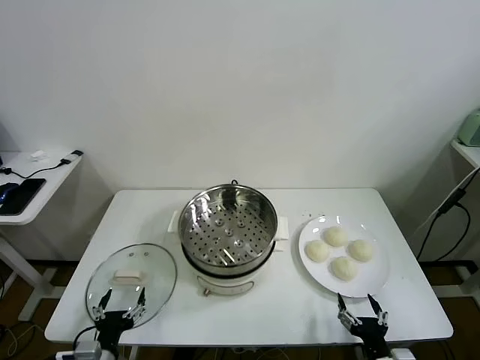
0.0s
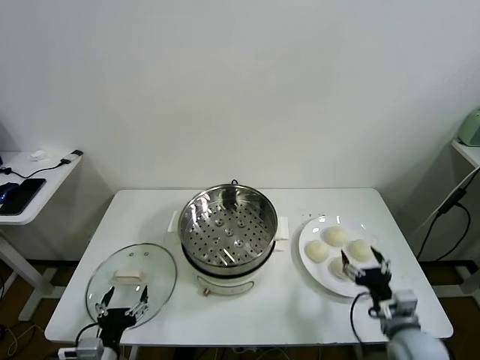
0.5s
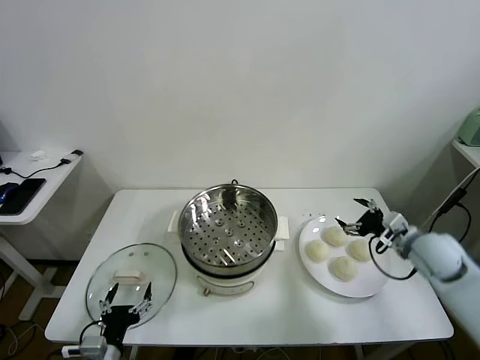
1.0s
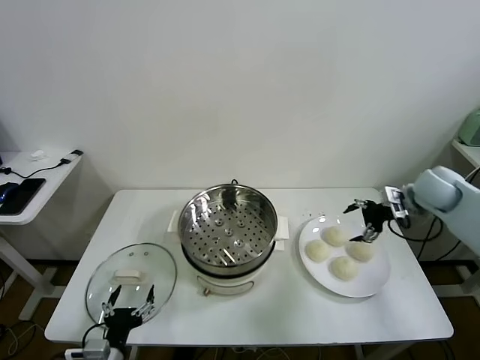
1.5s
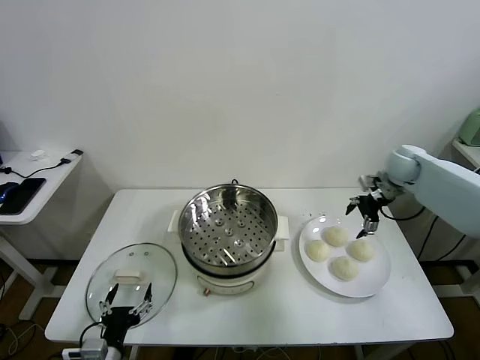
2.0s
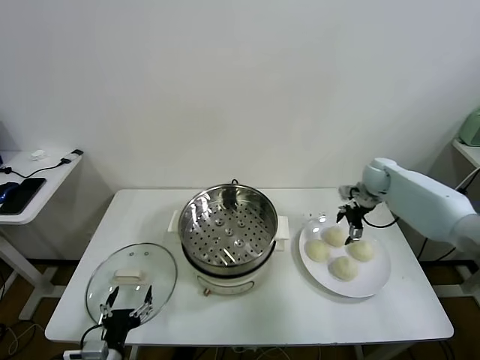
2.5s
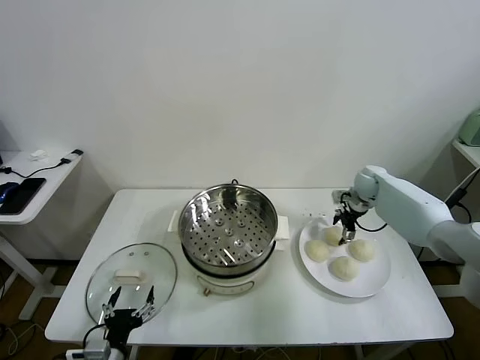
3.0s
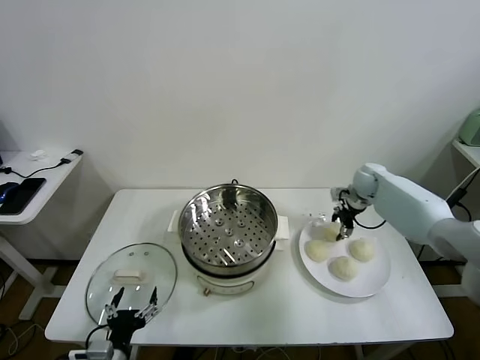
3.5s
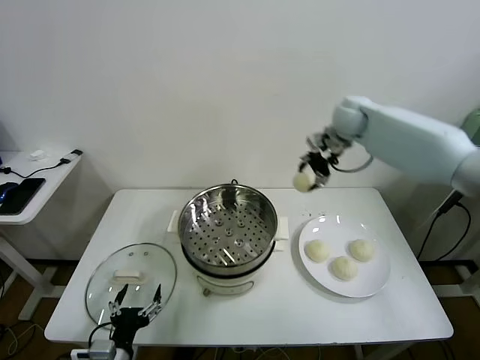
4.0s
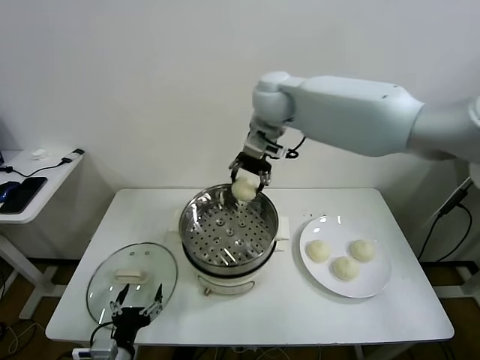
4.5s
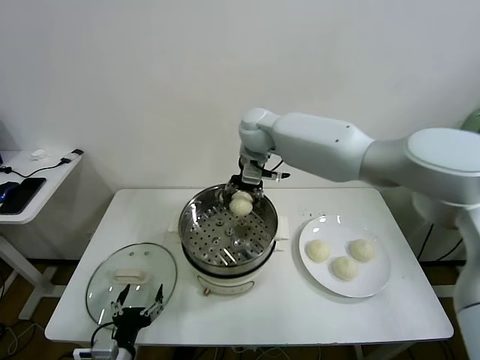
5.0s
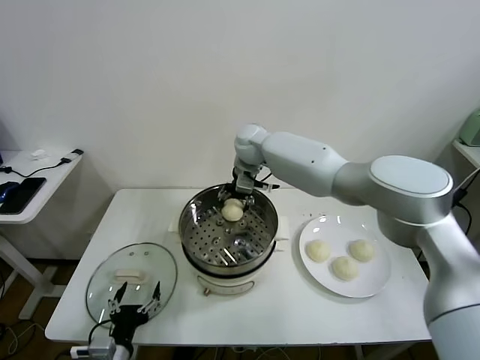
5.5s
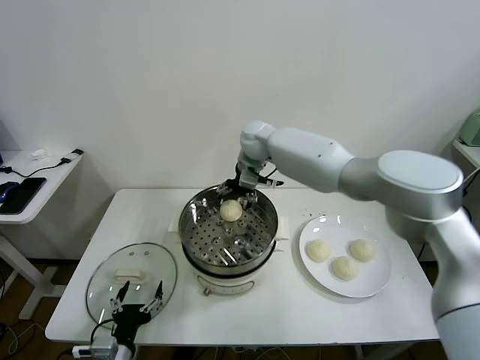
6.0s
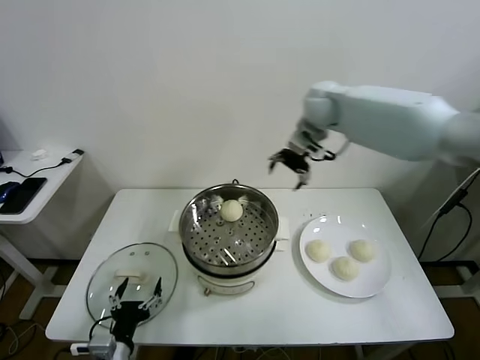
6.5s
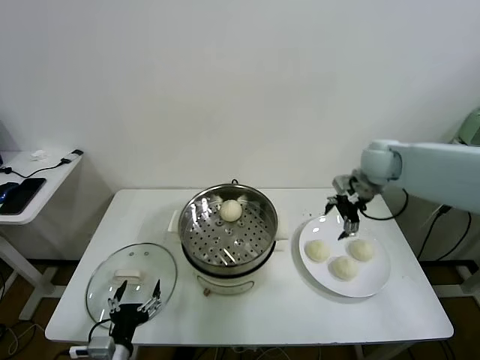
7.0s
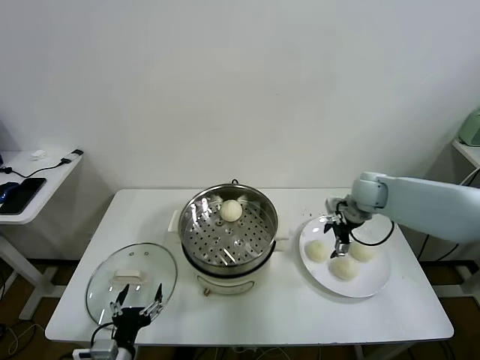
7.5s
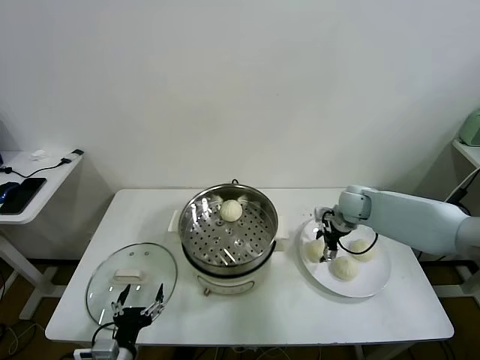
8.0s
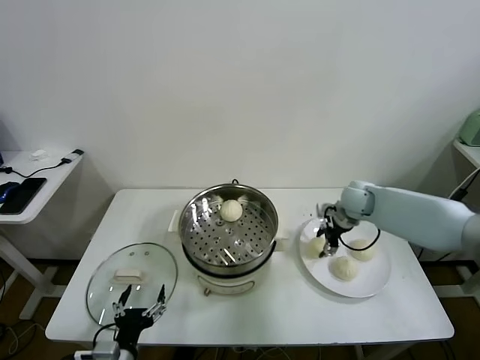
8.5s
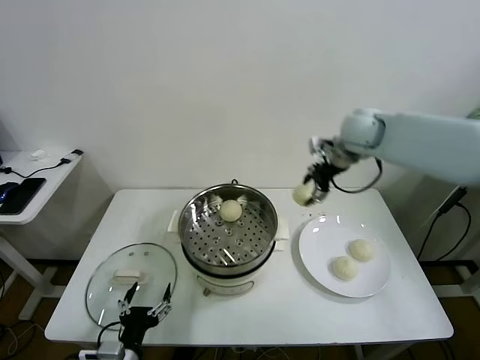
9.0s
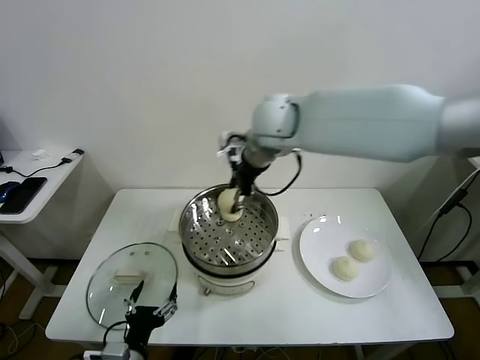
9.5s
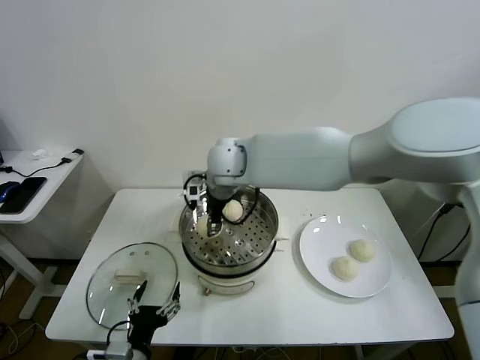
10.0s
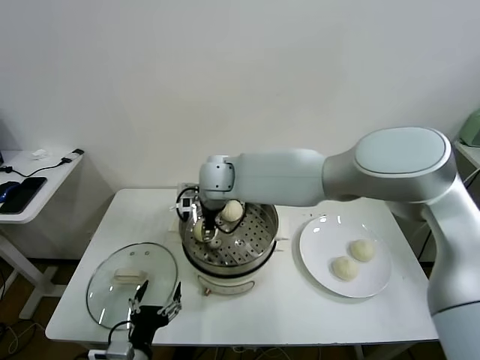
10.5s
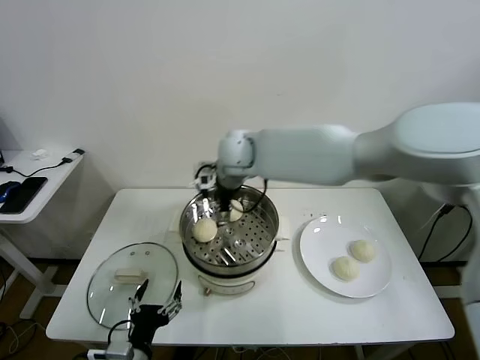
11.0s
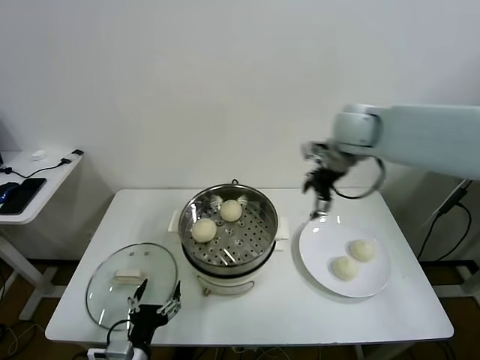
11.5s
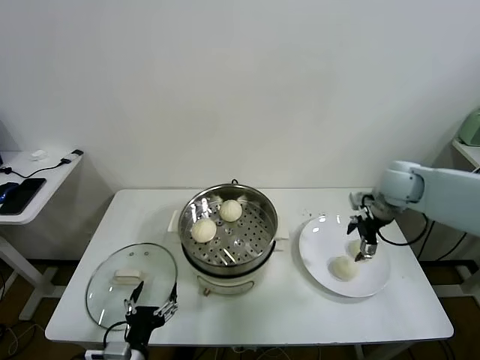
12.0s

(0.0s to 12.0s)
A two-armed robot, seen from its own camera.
Task of the whole recording: take steamed baozi put them in steamer.
Step, 0.0s - 3.0s: Grasp the baozi in the plate with right gripper.
Step, 3.5s - 5.5s: Place the baozi on the steamer with right gripper.
Step, 6.0s - 8.0s: Grasp the baozi in the plate with right gripper.
Step, 8.5s - 10.5s: Place the baozi on the steamer with right gripper.
2.0s - 4.0s: The right gripper shifts about 25 cm to the left and upward, and closes.
4.0s - 6.0s: The right gripper travels to the left and downward by roughly 20 cm, and opens up.
6.0s - 8.0s: The right gripper shifts some 30 cm to the right and downward, and closes.
8.0s - 10.0s: The right gripper goes roughly 35 cm to the left and upward, and closes its fingers.
10.0s - 12.0s: The right gripper is displaced to the right by approximately 40 cm, and opens its fingers.

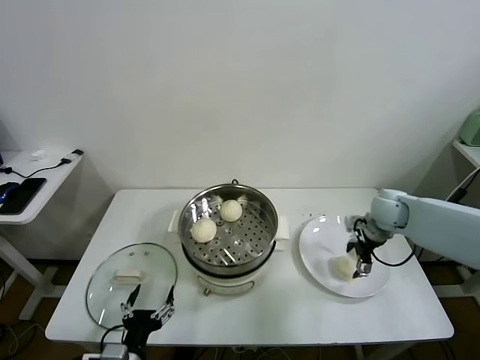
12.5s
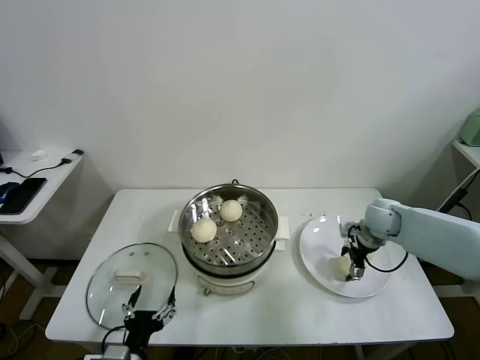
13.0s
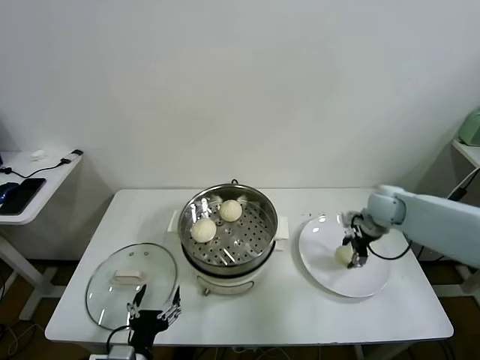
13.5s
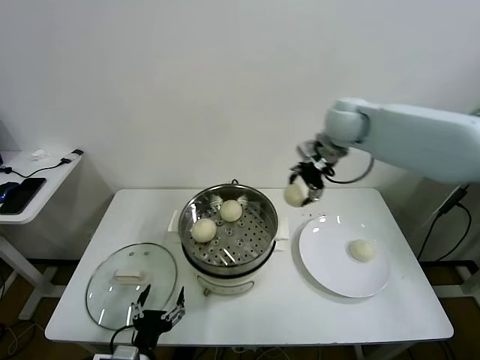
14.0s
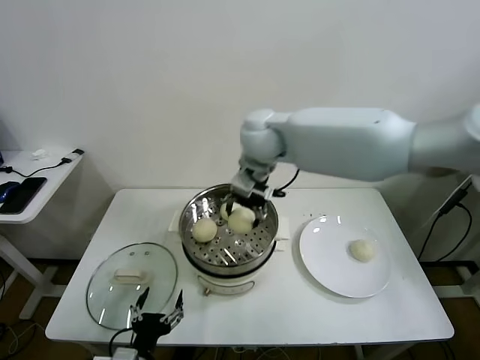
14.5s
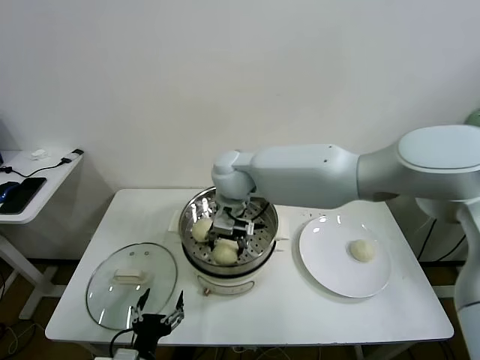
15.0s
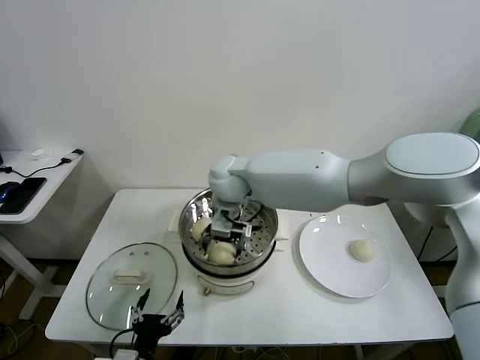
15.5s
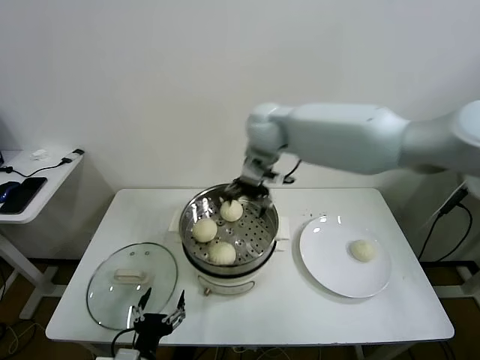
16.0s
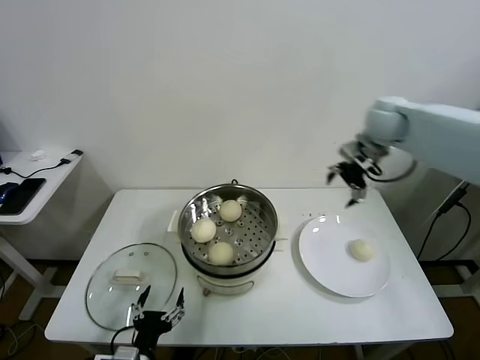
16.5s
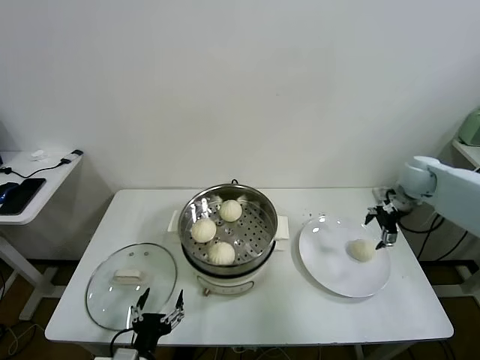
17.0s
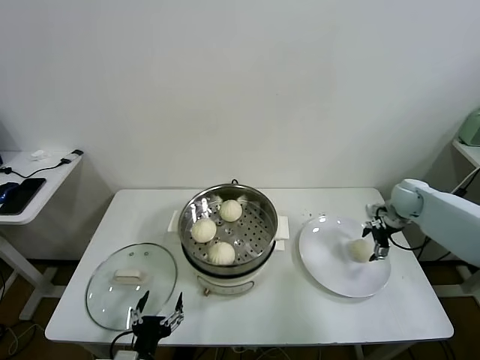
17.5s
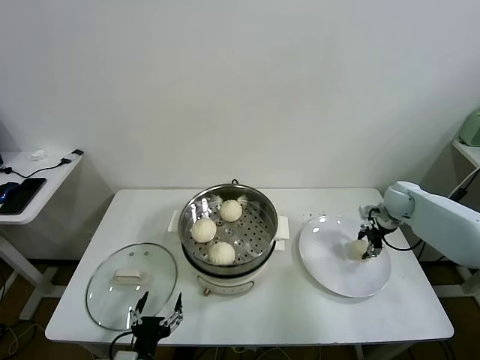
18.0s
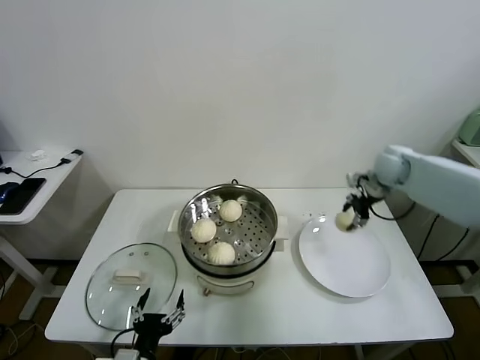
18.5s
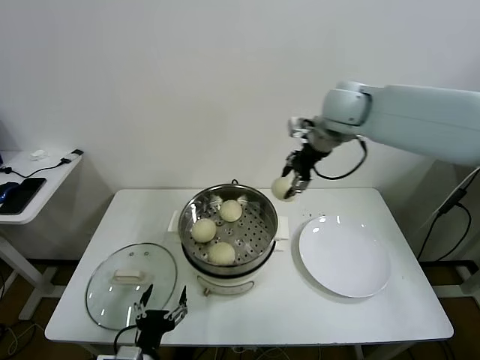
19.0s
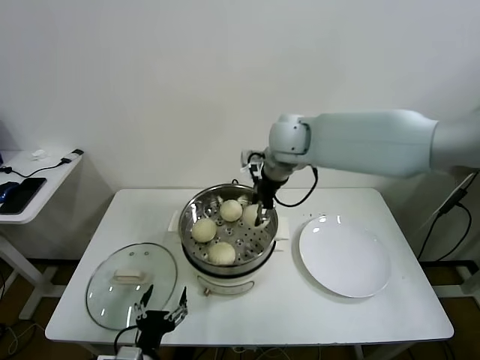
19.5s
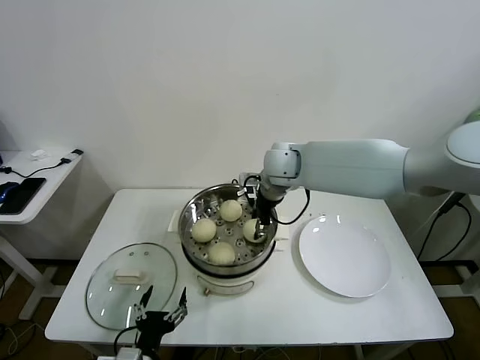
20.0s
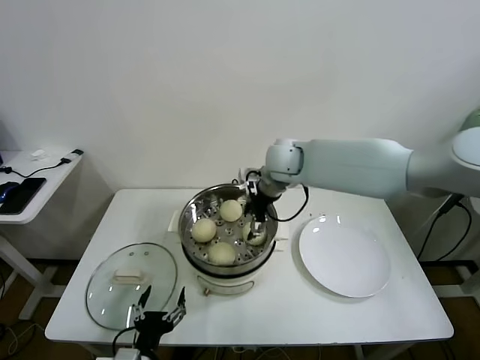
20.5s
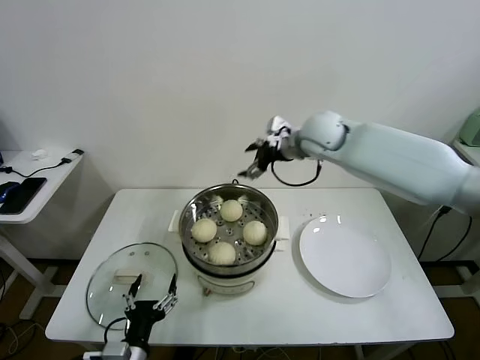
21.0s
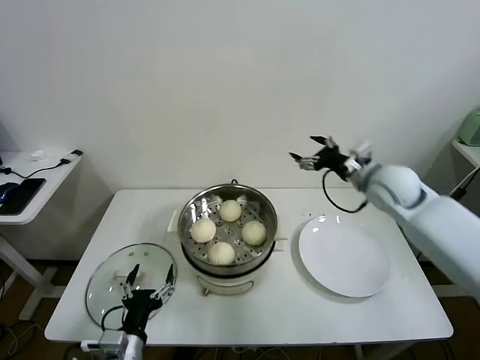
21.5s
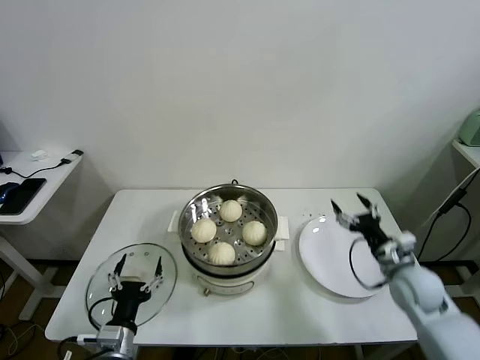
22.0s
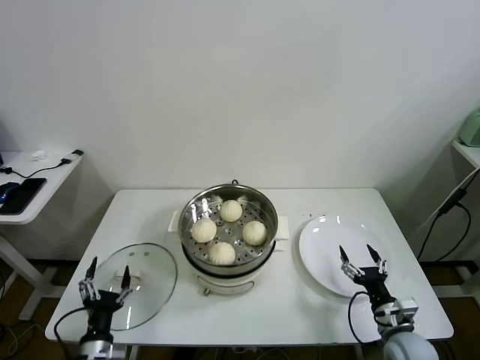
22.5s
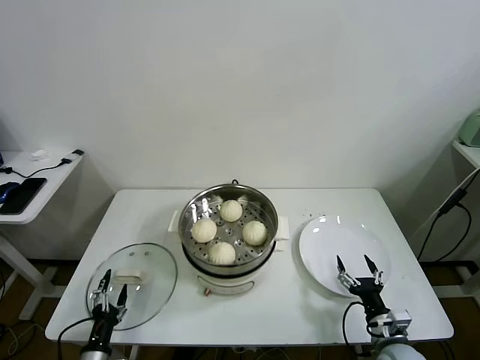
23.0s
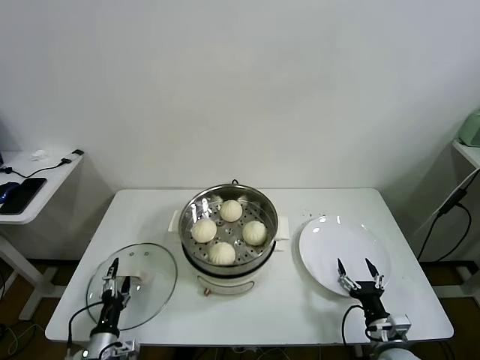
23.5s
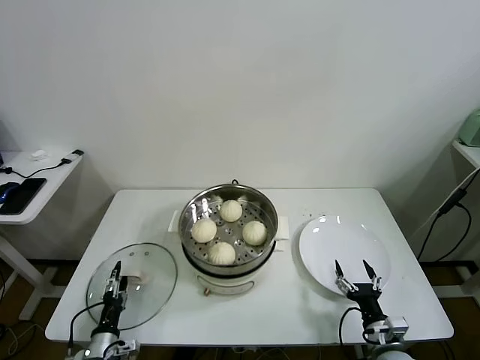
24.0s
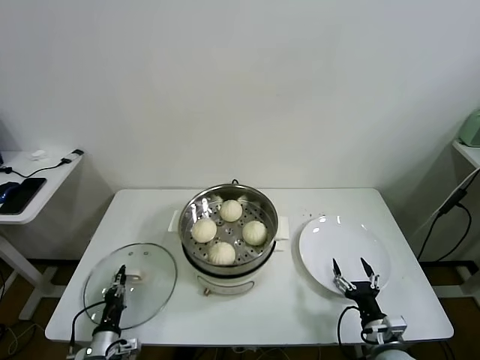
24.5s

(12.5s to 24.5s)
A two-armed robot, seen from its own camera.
Task of the whole recording: take steamed baozi put them in steamer.
Step, 13.5s - 15.5s: Place the baozi on the steamer with right gripper.
Step, 16.0s - 18.0s: Grasp the baozi in the plate with right gripper.
Step, 18.5s - 20.0s: Place the baozi on the steamer with right gripper.
Step, 20.5s - 24.0s: Grasp the pot lid with left gripper.
12.5s - 14.5s: The right gripper travels to the left and upward by some 40 cm, and closes up.
14.5s - 16.5s: The right gripper shifts some 30 cm to the right, and opens up.
16.5s - 18.5s: The right gripper moves downward, some 10 cm, and closes up.
18.5s - 20.5s: The right gripper moves to the left, some 25 cm, and opens.
20.5s - 22.5s: The right gripper goes roughly 50 cm backward, downward and to the right. Meanwhile the left gripper shifts some 10 cm to the left.
22.5s - 24.5s: The right gripper ends up approximately 5 cm from where it was, while the left gripper goes some 10 cm downward, and closes its fingers.

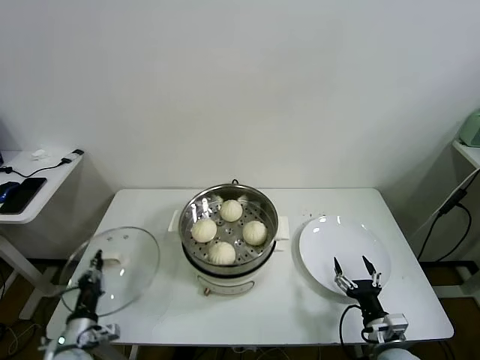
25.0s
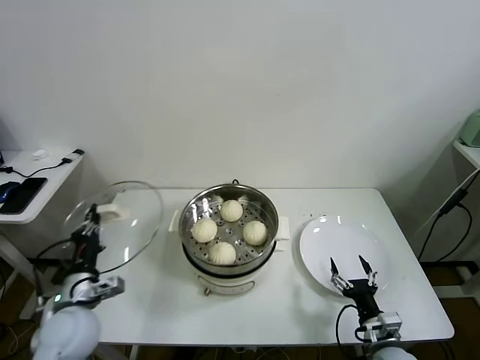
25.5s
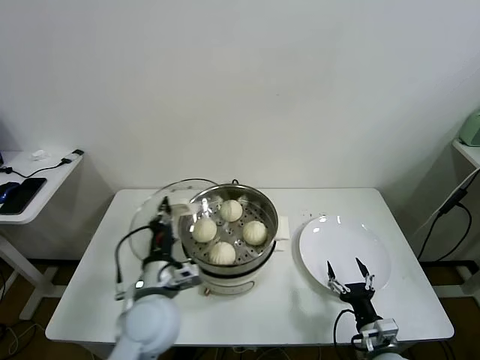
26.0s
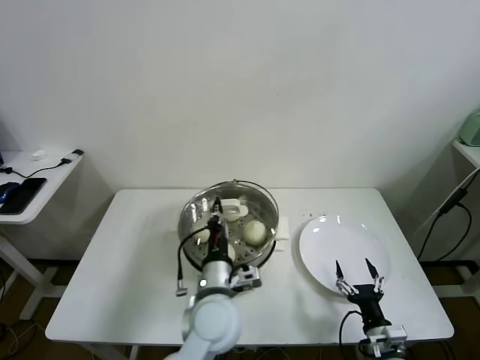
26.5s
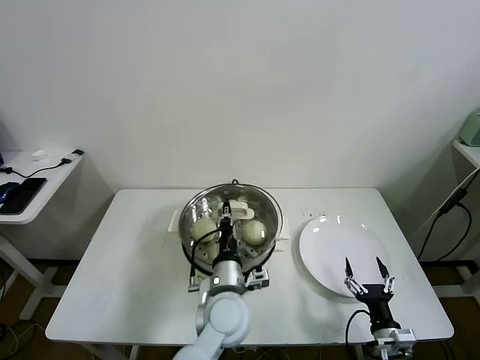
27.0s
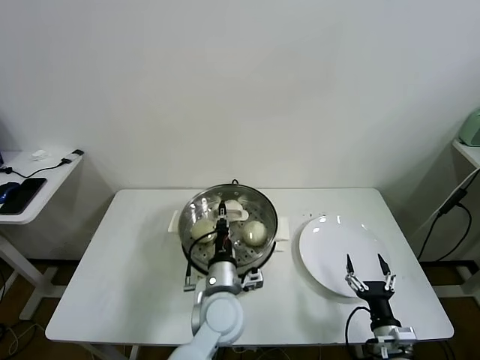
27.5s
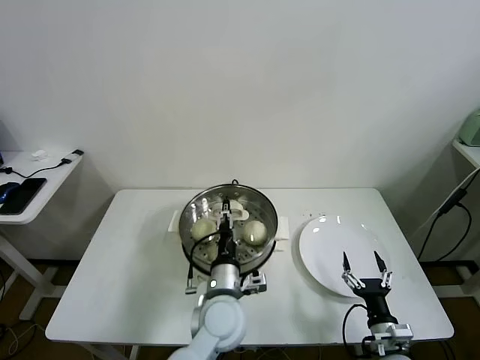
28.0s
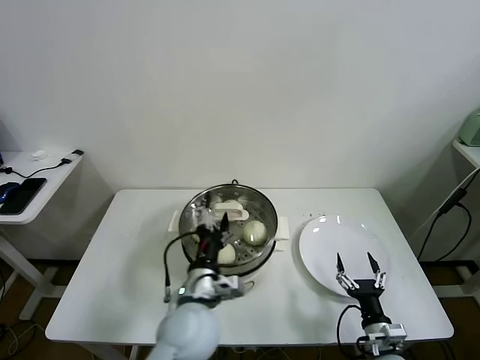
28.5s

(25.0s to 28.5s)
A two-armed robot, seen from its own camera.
Task of the whole recording: take steamed baozi put them in steamer.
Step, 25.0s - 28.0s: Place the pot lid on the steamer with left gripper.
25.0s - 27.0s: The left gripper moves to the right and upward, approximately 35 cm.
27.0s - 28.5s: The left gripper moves some 5 cm, and opens up.
